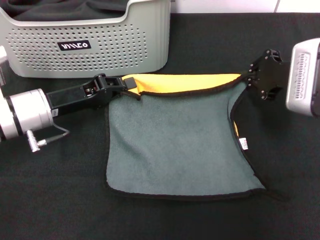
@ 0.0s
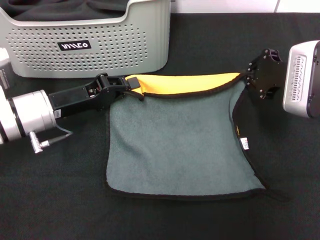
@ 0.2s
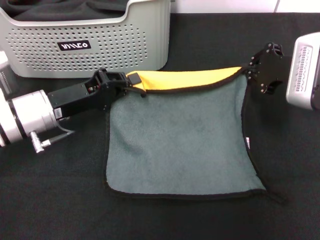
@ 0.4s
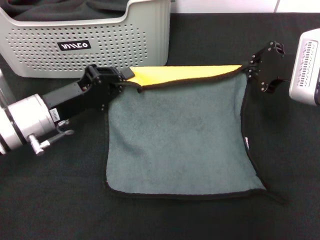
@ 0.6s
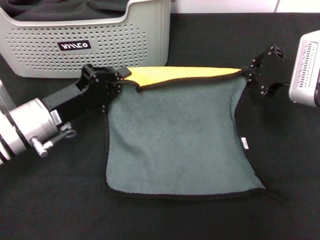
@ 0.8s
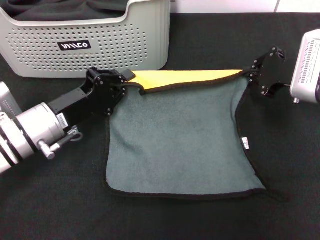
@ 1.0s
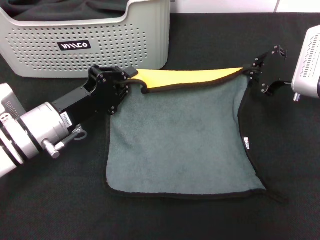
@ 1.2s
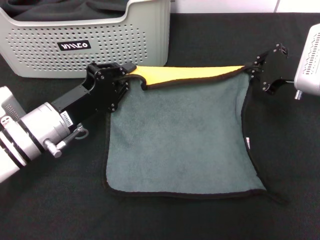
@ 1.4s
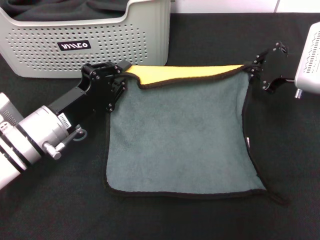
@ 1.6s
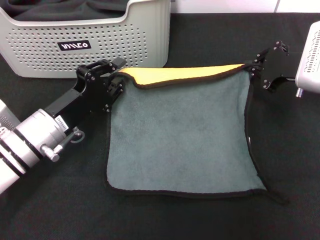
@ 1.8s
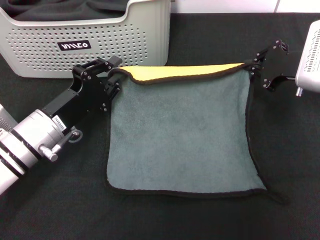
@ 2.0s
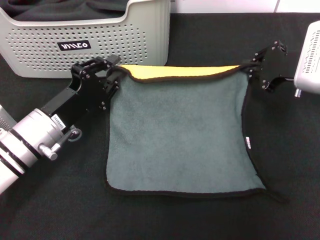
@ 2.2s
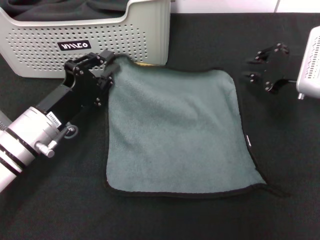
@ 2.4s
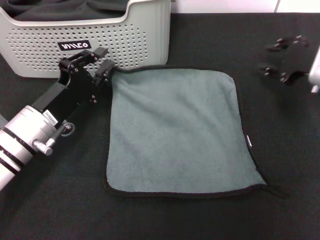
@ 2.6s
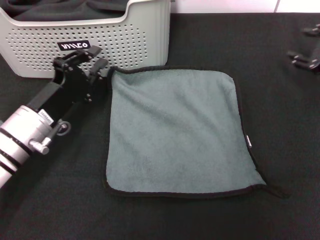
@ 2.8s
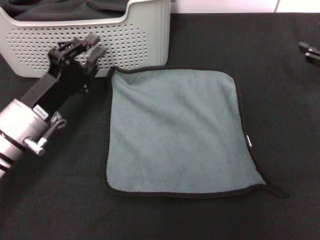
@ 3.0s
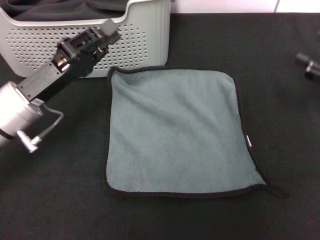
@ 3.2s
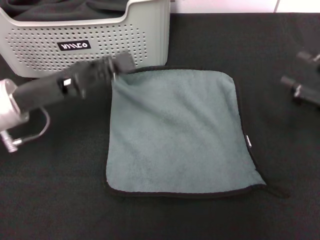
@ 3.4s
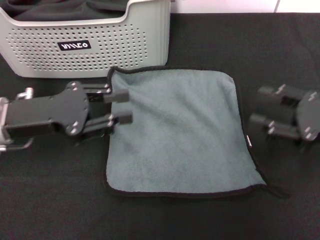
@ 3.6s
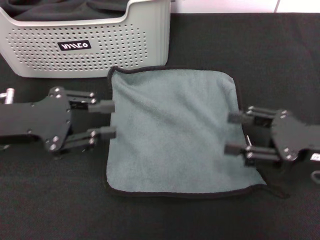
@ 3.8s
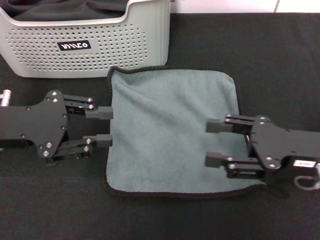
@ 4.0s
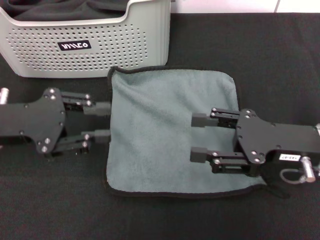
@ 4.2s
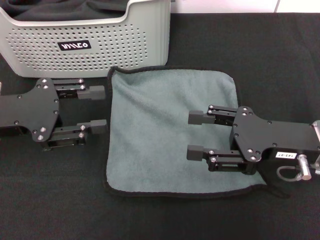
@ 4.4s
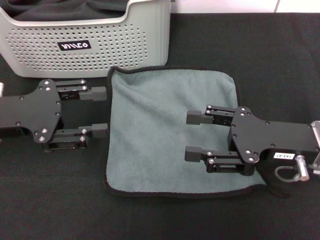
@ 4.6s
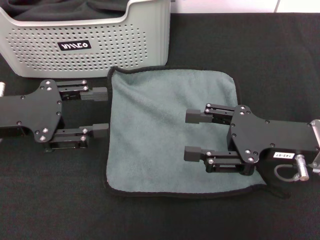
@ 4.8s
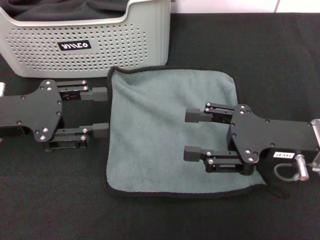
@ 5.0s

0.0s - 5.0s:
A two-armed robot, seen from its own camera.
Task of the whole recording: pick up the towel from the storage box and lay it flat on the black tablecloth.
Step, 0.0s - 2.4s: Spread the towel flat with the right gripper.
1.6s - 3.4s: The left gripper heads upward, covering about 5 cm, while the right gripper moves backward and to the right, approximately 15 cm, and opens up.
3.4s - 5.0s: The right gripper goes about 10 cm to the left, while the left gripper shifts by about 5 cm, and opens up.
